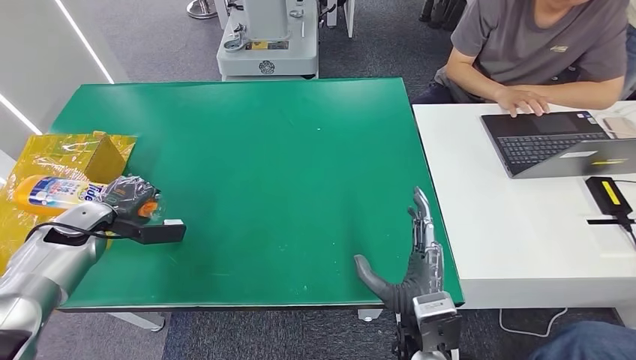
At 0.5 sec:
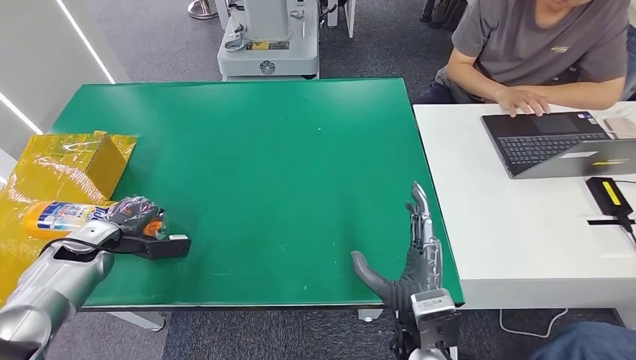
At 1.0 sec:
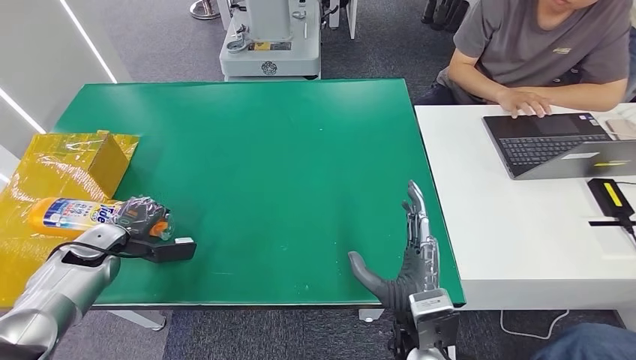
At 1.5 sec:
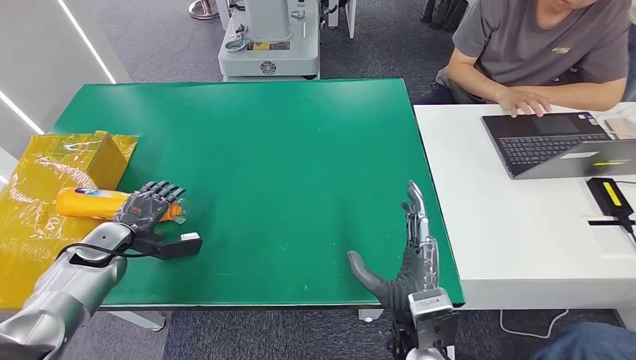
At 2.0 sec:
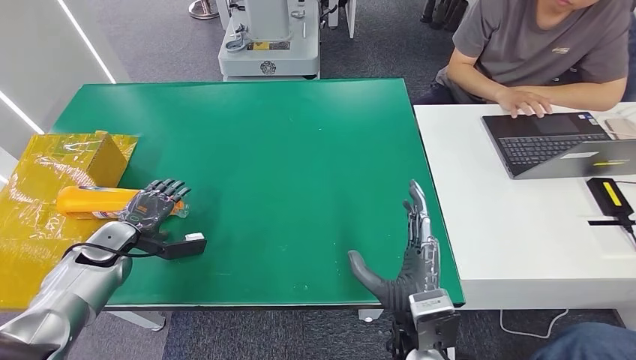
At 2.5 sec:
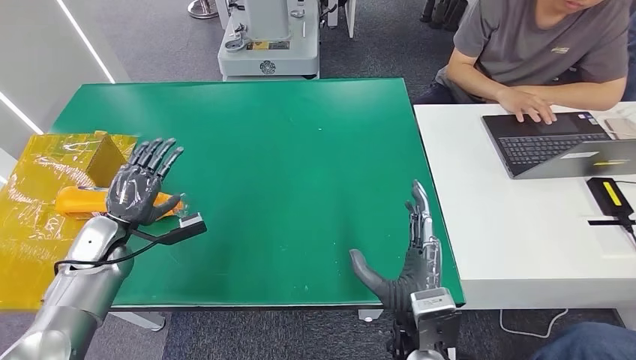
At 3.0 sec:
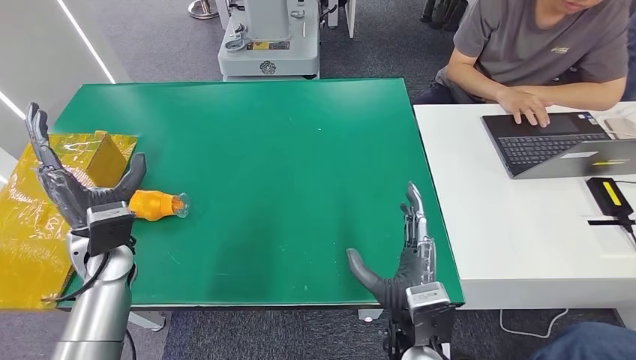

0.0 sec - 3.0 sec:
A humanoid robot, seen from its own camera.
Step, 0.0 sec - 3.0 sec: Turn the bottle to the front side.
0.0 sec - 1.5 sec: The left hand ends up about 5 cm from where it was.
1.5 sec - 3.0 sec: The left hand is displaced to the right and upward by roughly 15 cm.

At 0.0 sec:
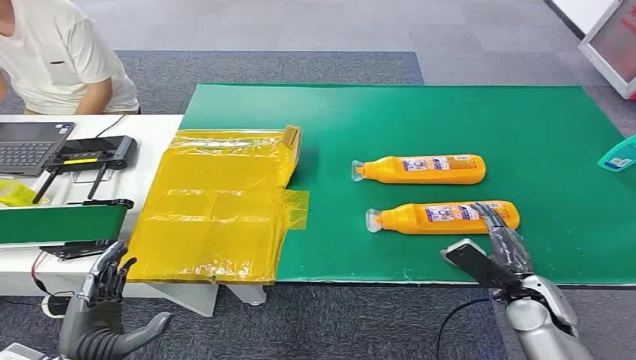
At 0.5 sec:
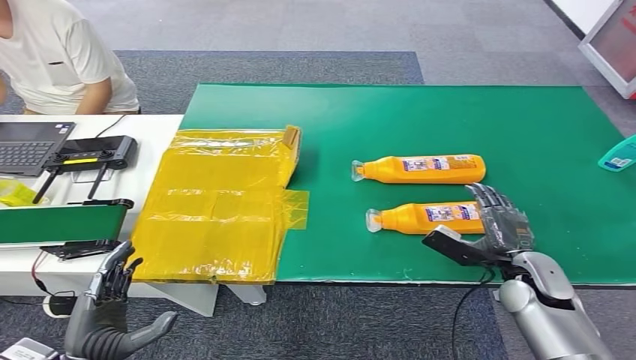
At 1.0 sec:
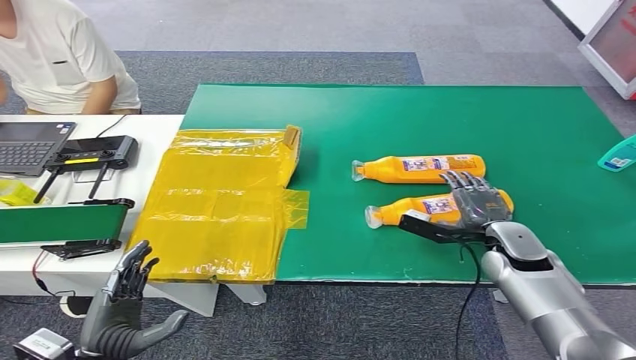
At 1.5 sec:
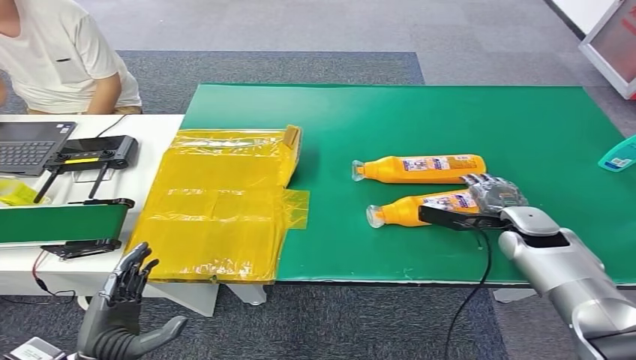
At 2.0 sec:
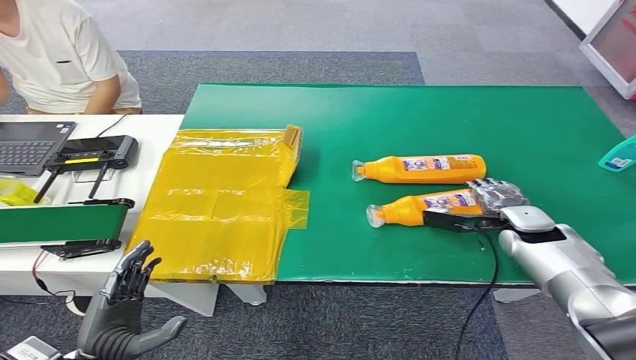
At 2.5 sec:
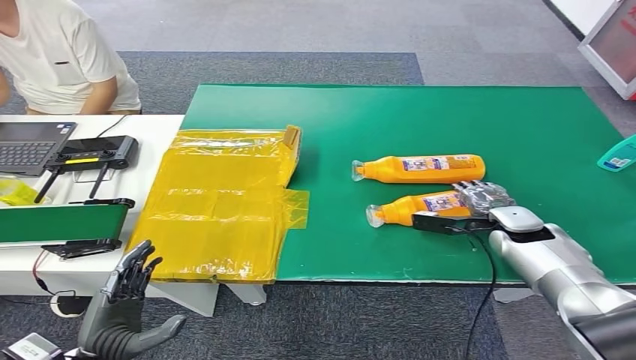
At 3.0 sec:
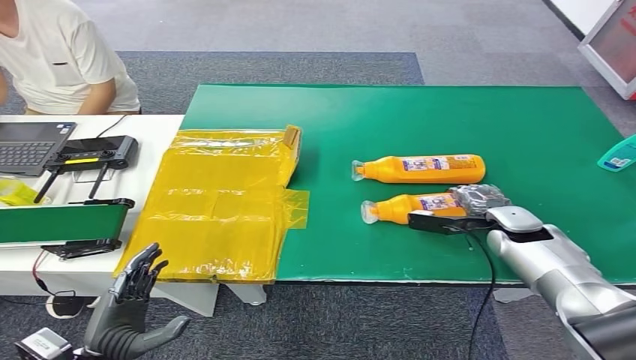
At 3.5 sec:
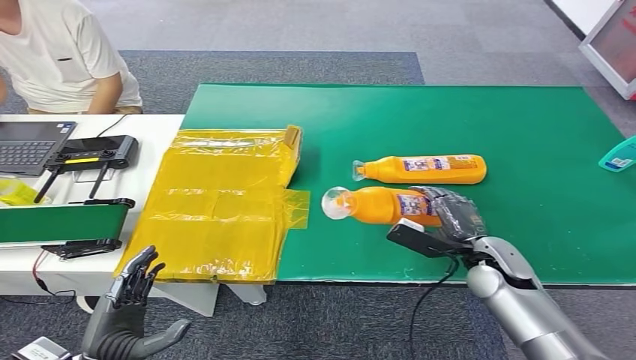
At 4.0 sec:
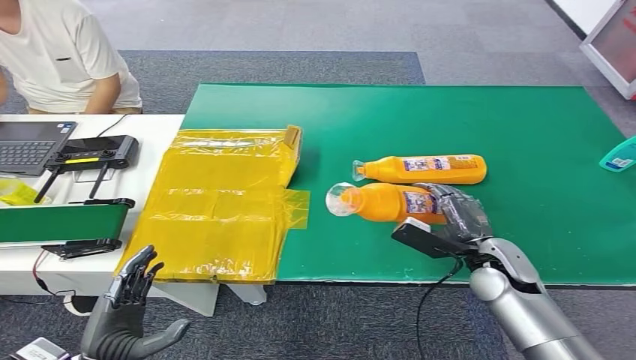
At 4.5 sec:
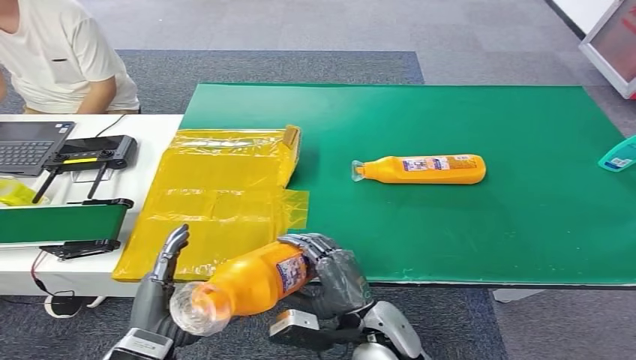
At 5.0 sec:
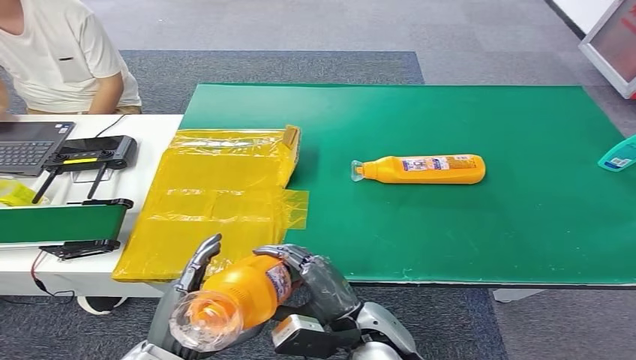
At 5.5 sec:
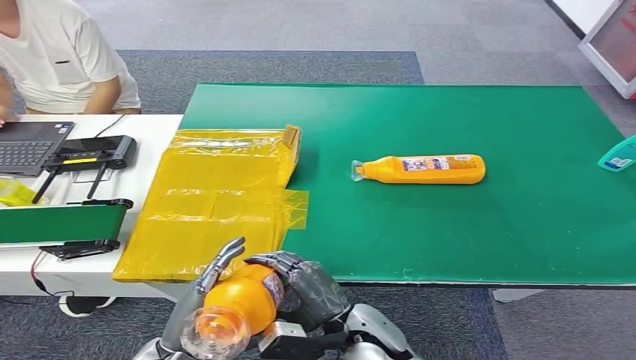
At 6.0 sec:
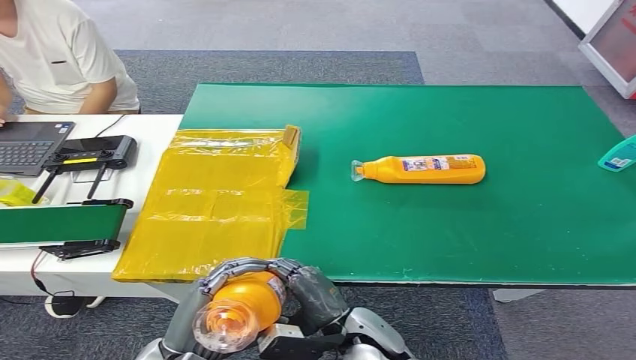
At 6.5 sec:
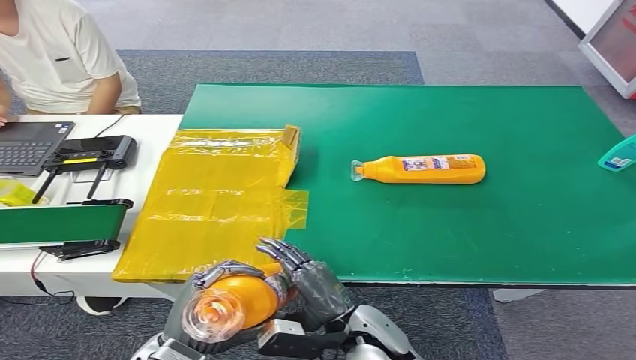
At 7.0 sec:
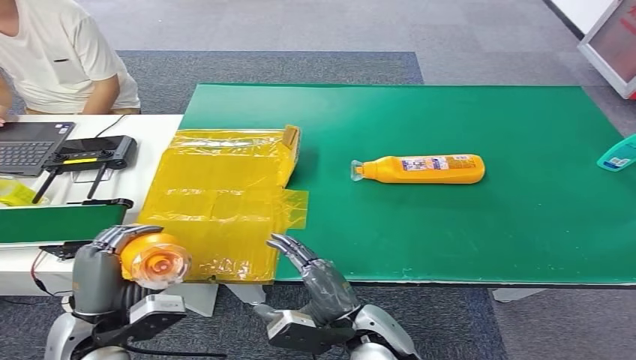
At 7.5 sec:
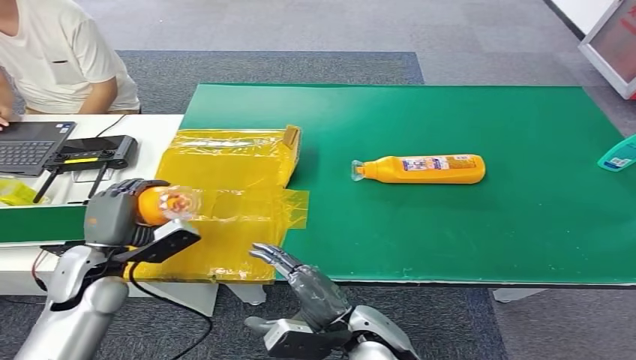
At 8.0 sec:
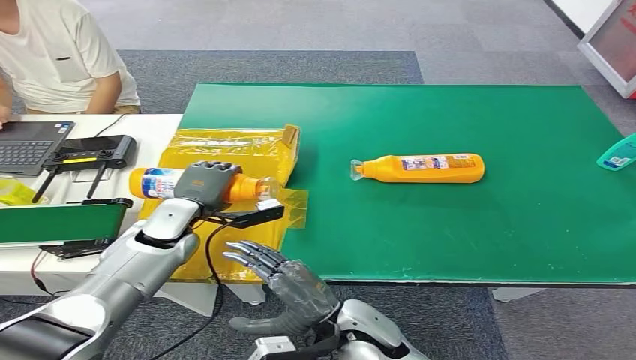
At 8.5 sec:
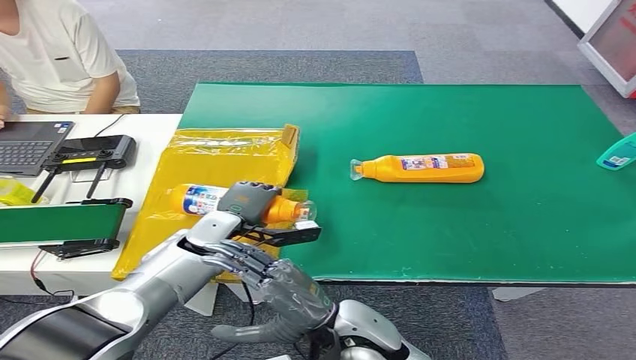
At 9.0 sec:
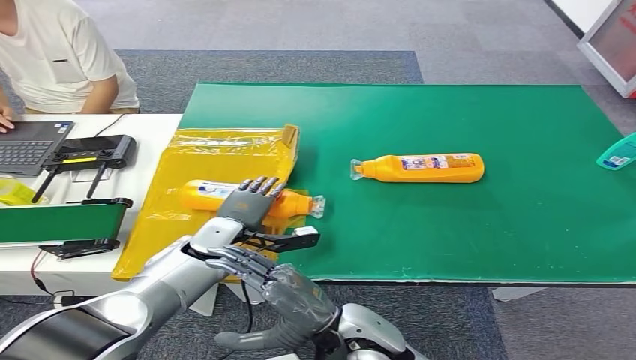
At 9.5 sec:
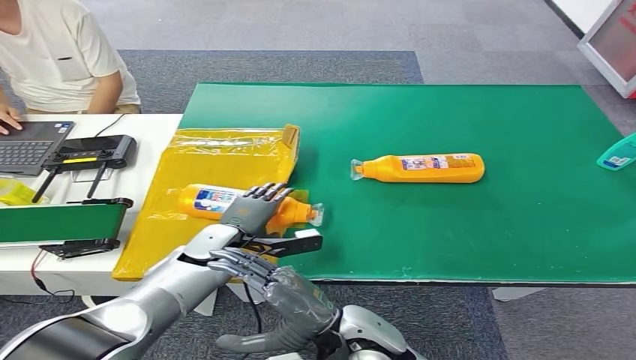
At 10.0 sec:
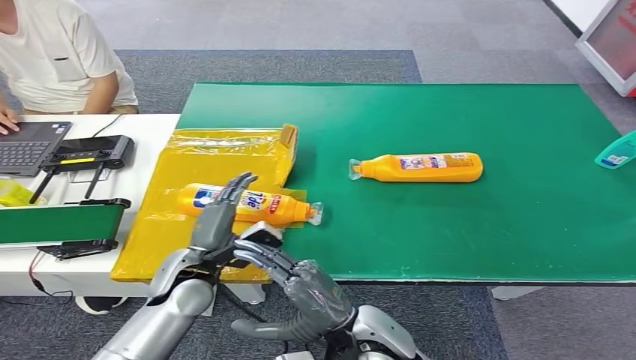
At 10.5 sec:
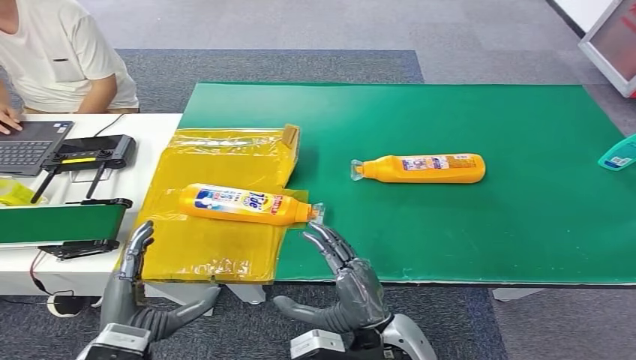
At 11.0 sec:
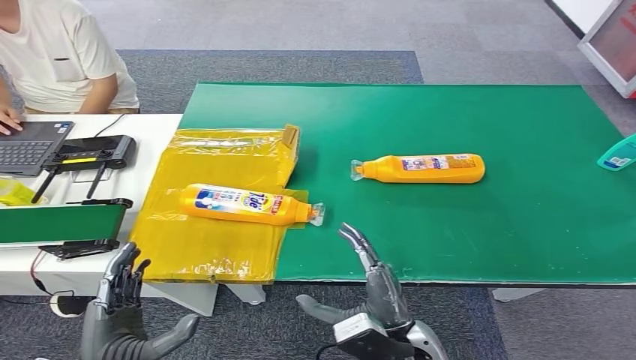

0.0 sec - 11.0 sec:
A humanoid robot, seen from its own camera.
Step, 0.0 sec - 4.0 sec: Pick up the bottle from the table.
Step, 5.0 sec - 11.0 sec: Turn the bottle to the front side.
2.0 sec - 3.5 sec: The right hand heads backward and to the left, covering about 10 cm.
3.5 sec - 5.5 sec: The left hand travels to the right by approximately 10 cm, while the right hand is displaced to the left and backward by some 25 cm.
5.5 sec - 7.5 sec: The left hand travels forward and to the left by about 20 cm.
7.5 sec - 9.0 sec: The left hand goes about 15 cm to the right and forward. The right hand moves upward, roughly 5 cm.
9.0 sec - 11.0 sec: The left hand moves backward, approximately 25 cm, while the right hand moves to the right, some 5 cm.

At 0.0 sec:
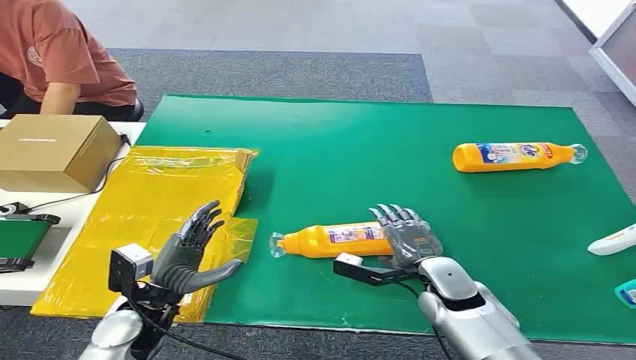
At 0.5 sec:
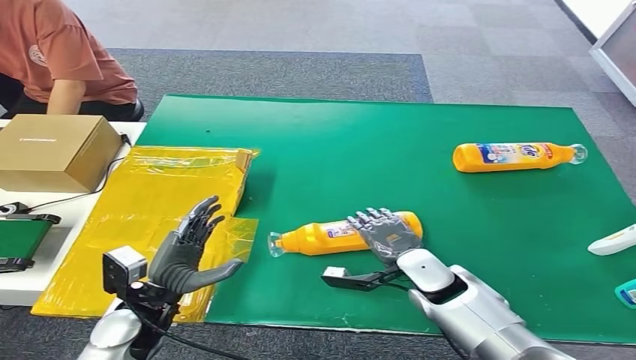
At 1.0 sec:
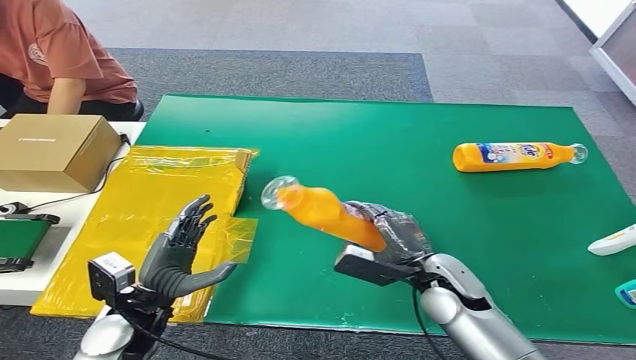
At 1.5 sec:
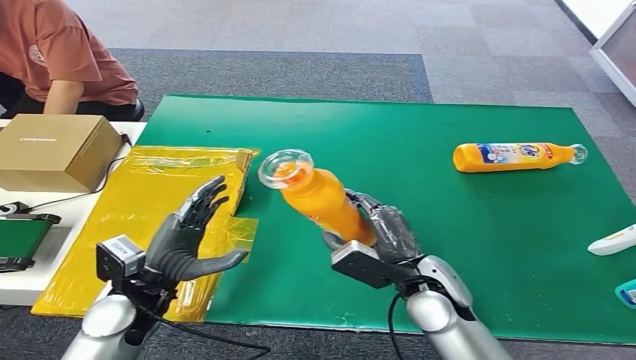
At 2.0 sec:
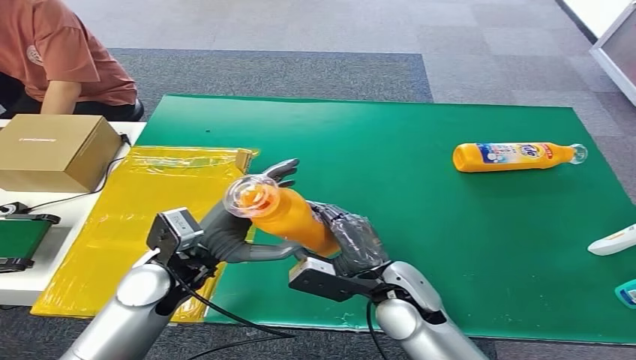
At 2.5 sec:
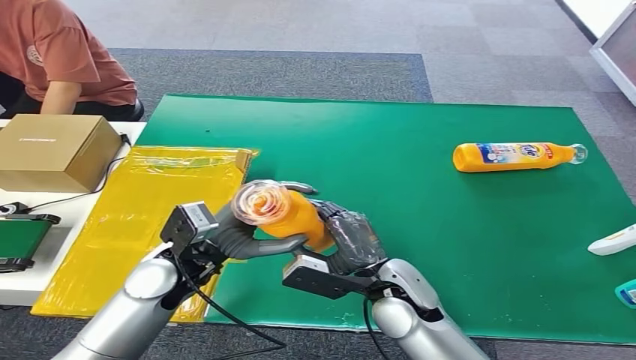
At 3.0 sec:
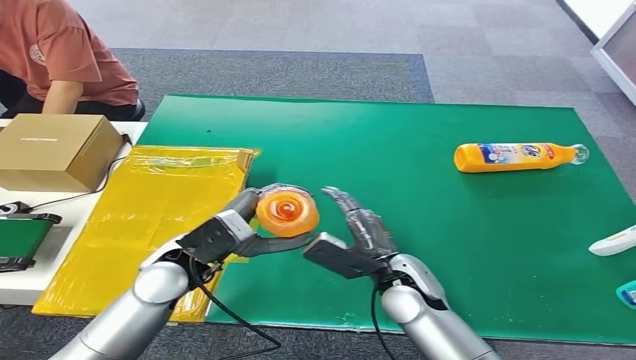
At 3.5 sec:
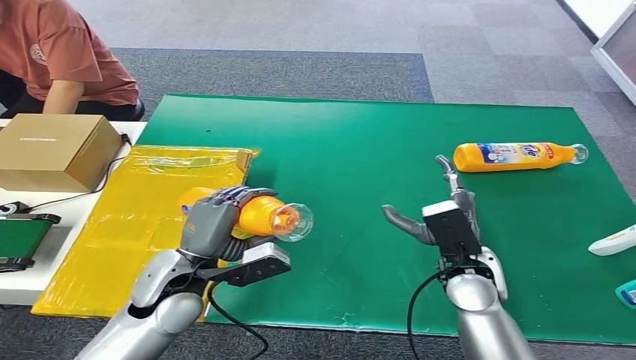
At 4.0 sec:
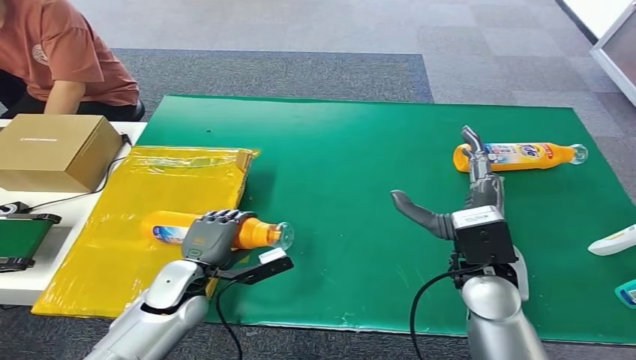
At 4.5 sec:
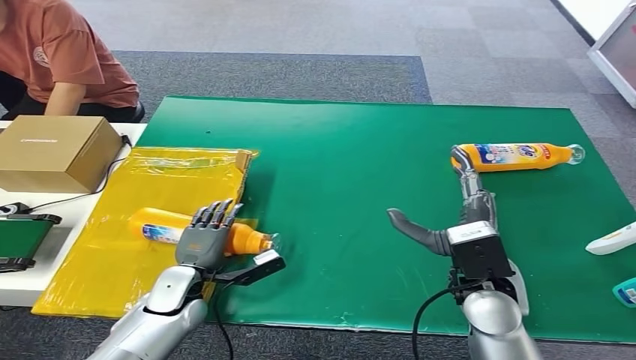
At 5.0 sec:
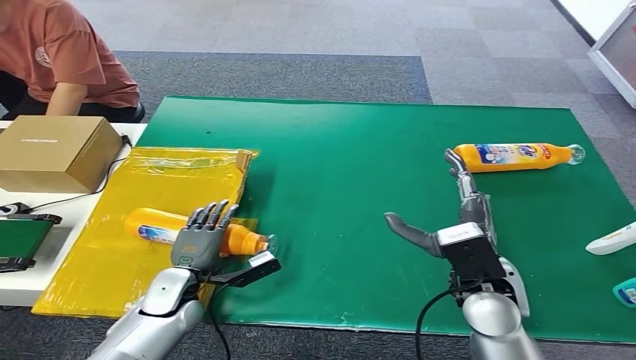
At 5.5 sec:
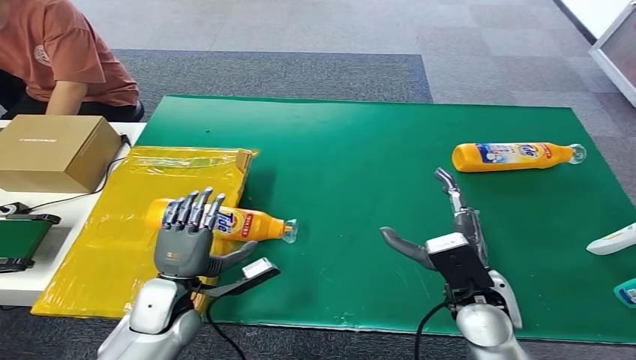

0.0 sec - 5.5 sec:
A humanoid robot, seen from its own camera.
Step, 0.0 sec - 1.0 sec: Pick up the bottle from the table.
Step, 1.5 sec - 5.5 sec: Turn the bottle to the front side.
2.0 sec - 3.5 sec: The right hand travels to the right by about 10 cm.
3.5 sec - 5.5 sec: The left hand heads downward, covering approximately 10 cm.
